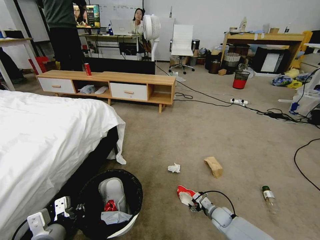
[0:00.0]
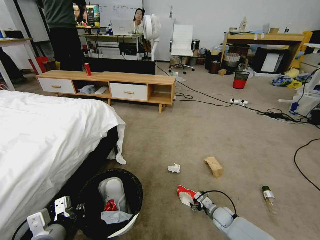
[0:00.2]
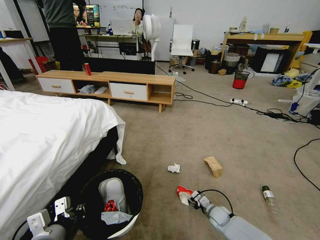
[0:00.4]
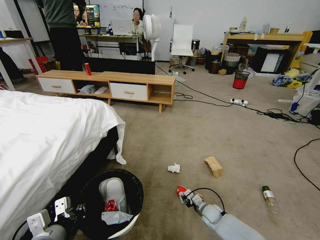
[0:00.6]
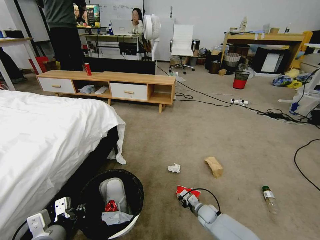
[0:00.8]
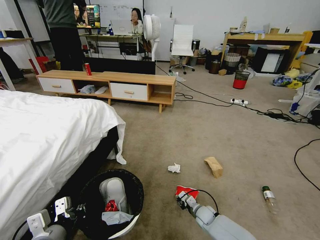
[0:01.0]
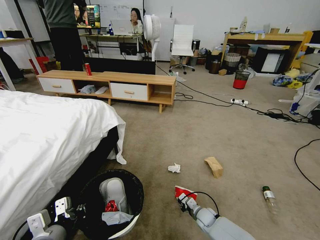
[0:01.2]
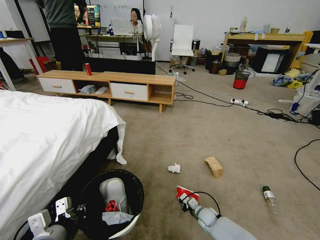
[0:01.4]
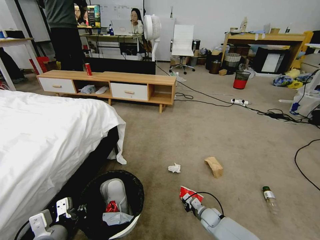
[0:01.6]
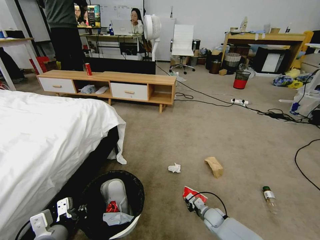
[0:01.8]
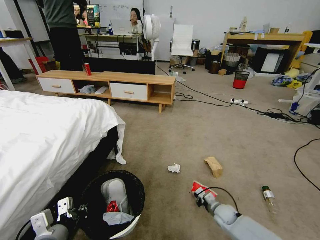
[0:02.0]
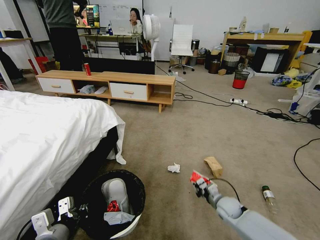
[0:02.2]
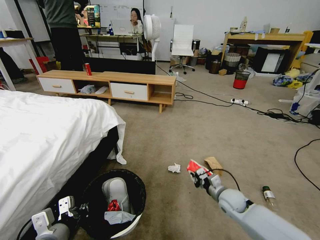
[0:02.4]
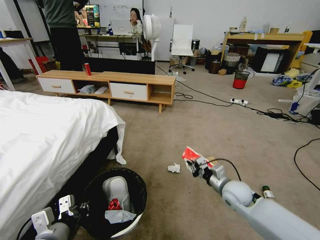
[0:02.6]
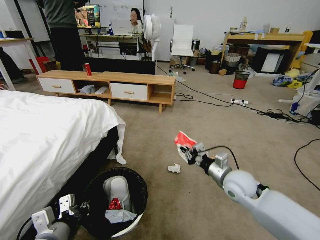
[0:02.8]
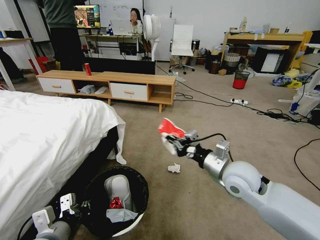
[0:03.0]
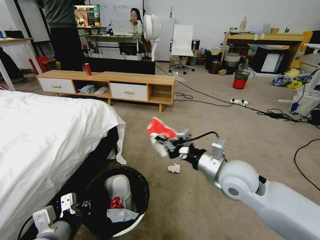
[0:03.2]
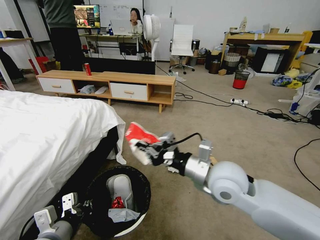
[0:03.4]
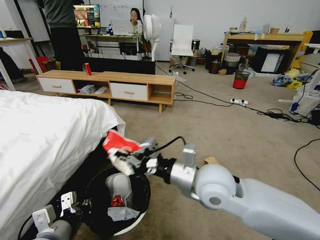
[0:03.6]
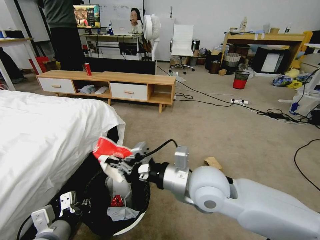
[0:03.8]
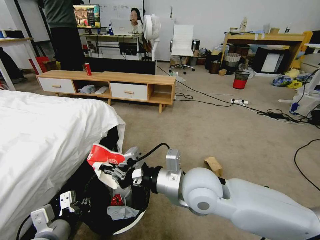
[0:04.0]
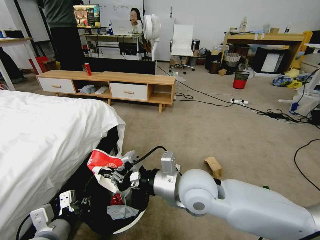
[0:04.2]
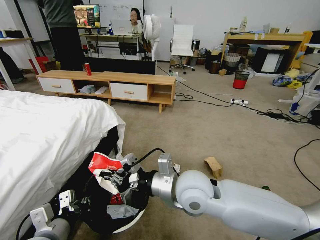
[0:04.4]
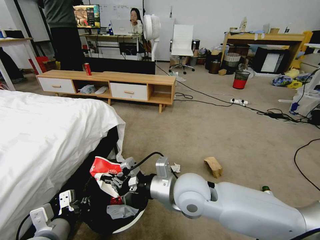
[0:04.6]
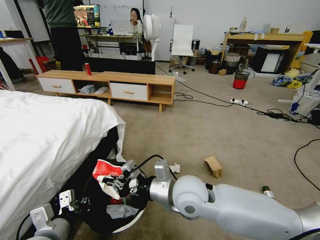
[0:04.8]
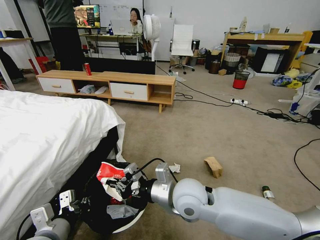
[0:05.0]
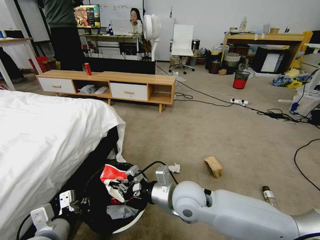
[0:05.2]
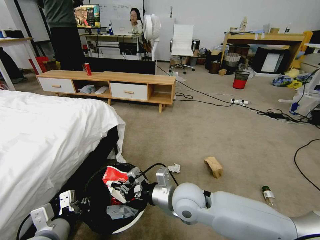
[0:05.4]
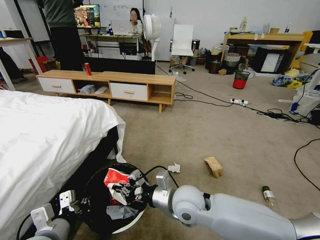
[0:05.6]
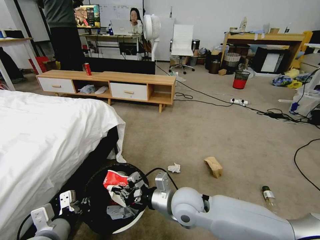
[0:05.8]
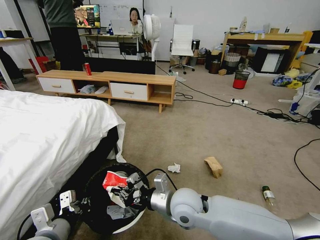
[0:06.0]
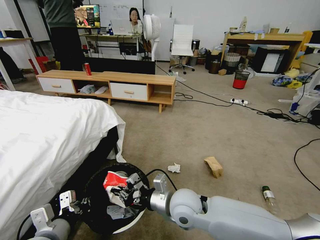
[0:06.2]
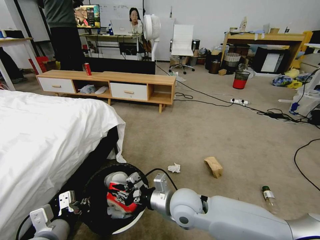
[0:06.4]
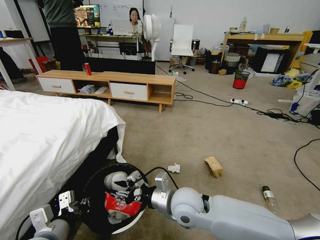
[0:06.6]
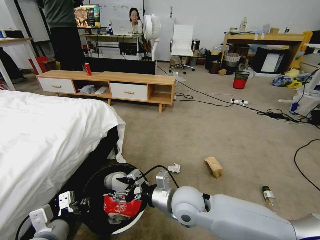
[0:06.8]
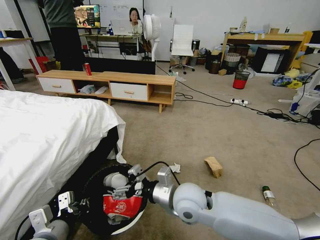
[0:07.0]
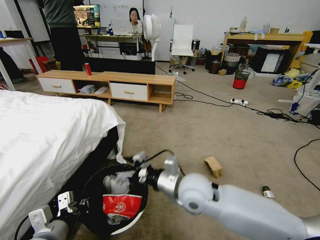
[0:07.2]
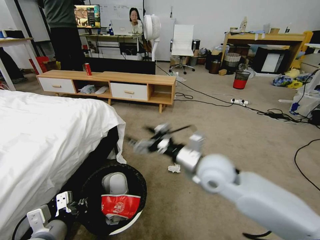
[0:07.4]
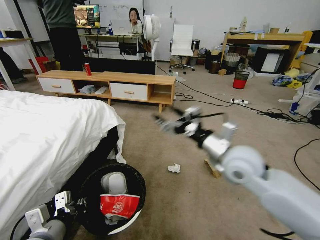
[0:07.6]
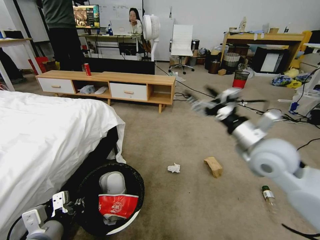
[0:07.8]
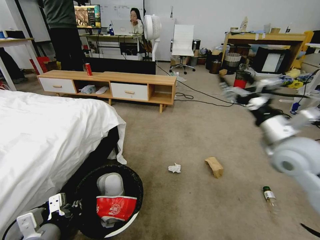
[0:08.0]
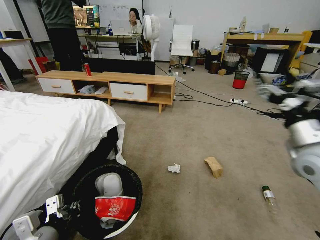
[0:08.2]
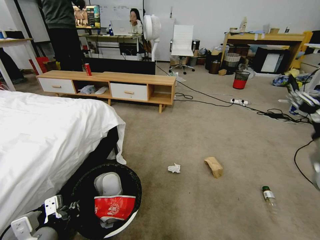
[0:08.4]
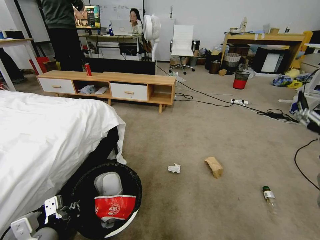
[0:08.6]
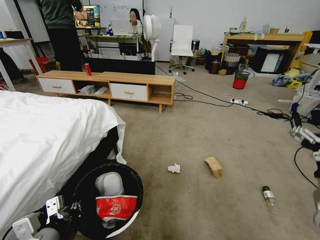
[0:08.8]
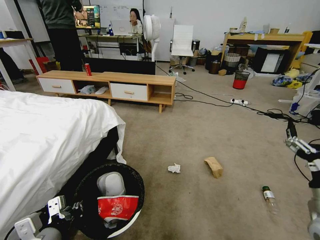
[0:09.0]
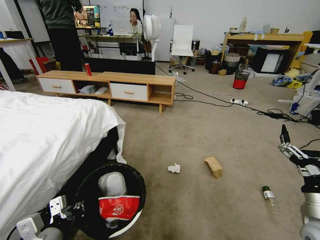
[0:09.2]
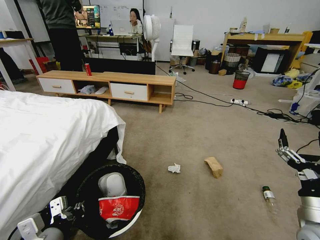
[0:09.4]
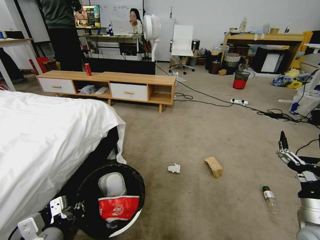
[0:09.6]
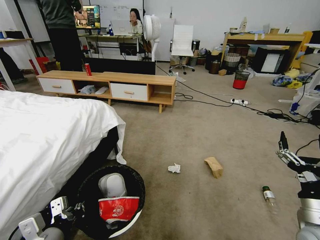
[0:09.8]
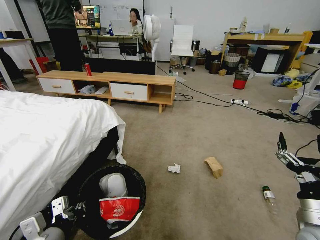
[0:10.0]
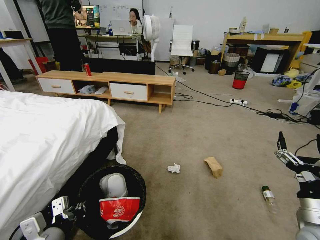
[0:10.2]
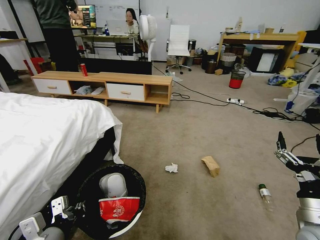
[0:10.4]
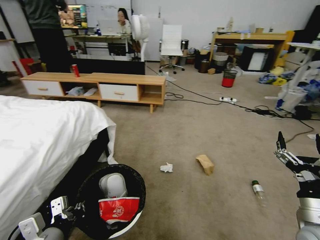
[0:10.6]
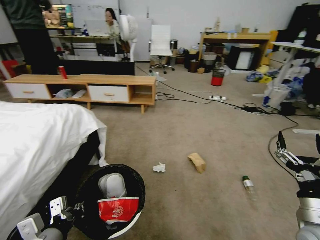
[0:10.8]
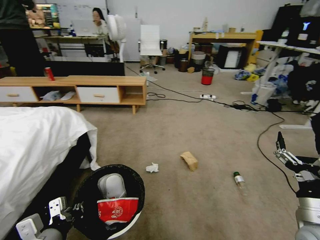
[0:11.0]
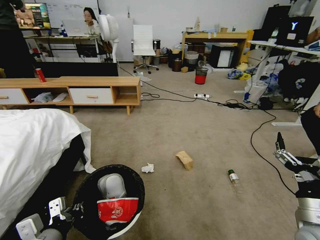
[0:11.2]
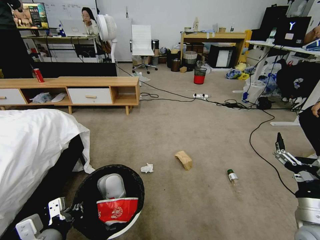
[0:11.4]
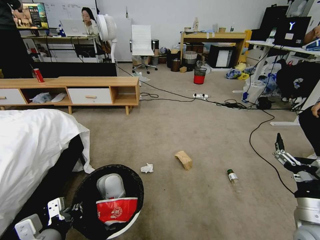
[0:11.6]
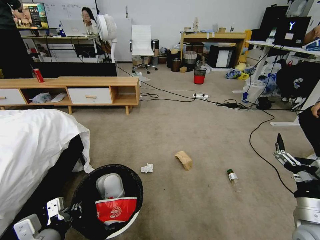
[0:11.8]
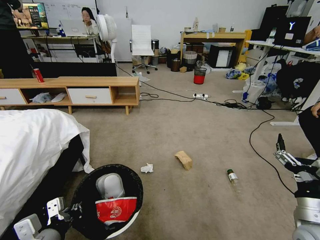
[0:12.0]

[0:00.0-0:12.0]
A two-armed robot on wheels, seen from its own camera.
Task of the whole recording: Pick up the trash bin and place the garbage on the floor into it.
0:00.0 to 0:01.6: The right gripper ends up about 5 cm from where it was, and closes.
0:01.6 to 0:03.0: The right gripper travels upward by roughly 35 cm.
0:03.0 to 0:04.4: The right gripper goes about 15 cm to the left.
0:04.4 to 0:06.0: The right gripper shifts about 10 cm downward.
0:06.0 to 0:07.6: The right gripper travels to the right and upward by approximately 20 cm, and opens up.
0:07.6 to 0:09.0: The right gripper moves to the right, backward and downward, about 25 cm.

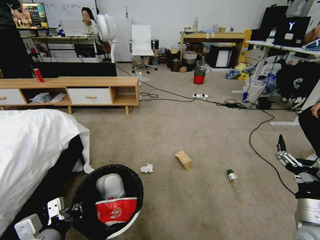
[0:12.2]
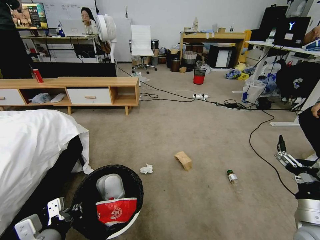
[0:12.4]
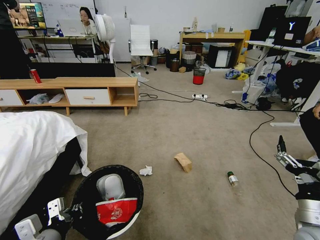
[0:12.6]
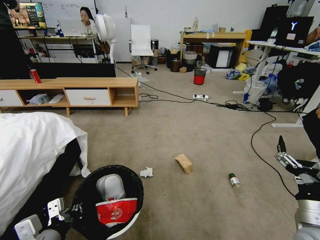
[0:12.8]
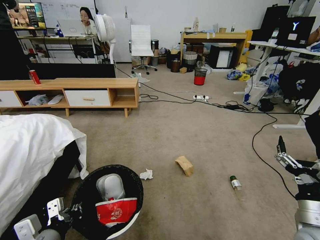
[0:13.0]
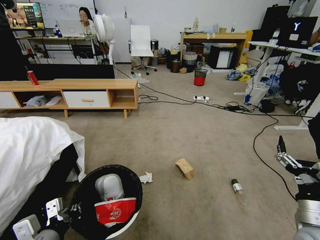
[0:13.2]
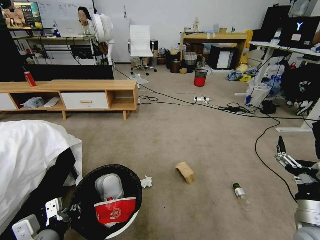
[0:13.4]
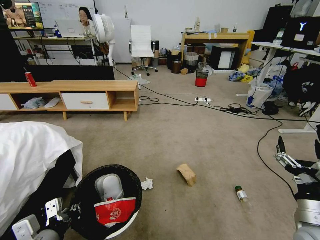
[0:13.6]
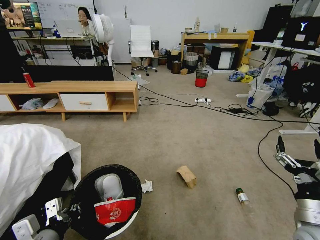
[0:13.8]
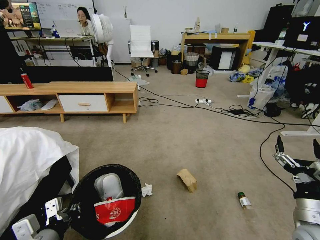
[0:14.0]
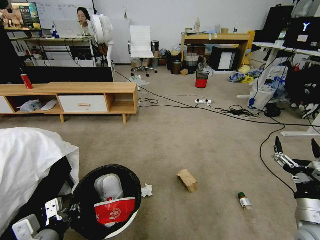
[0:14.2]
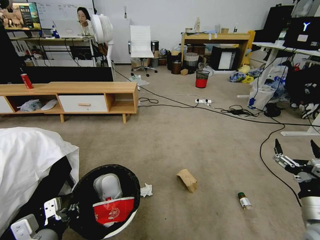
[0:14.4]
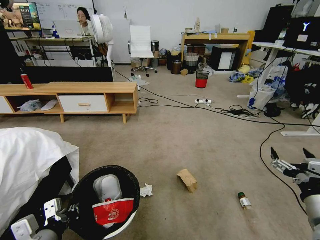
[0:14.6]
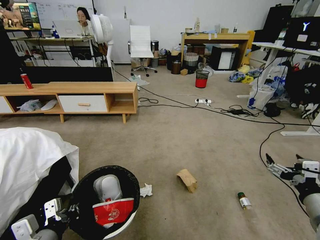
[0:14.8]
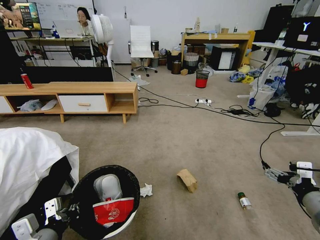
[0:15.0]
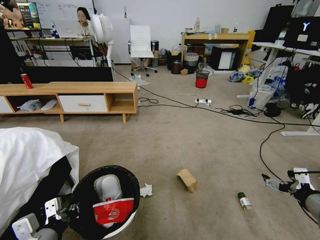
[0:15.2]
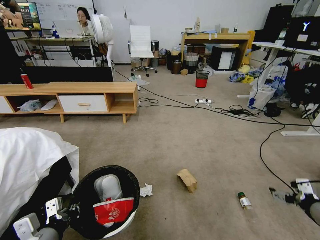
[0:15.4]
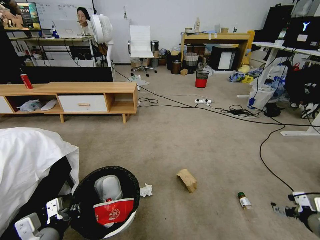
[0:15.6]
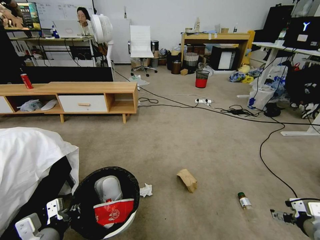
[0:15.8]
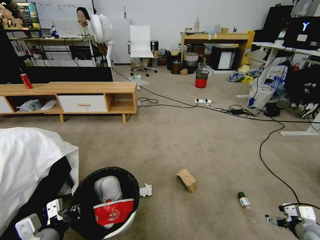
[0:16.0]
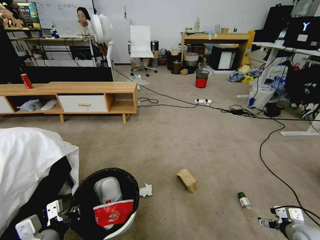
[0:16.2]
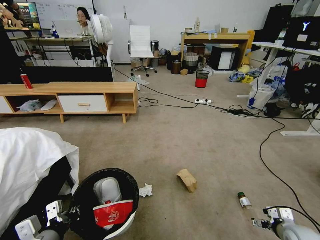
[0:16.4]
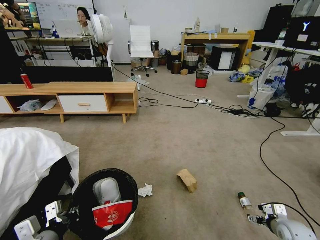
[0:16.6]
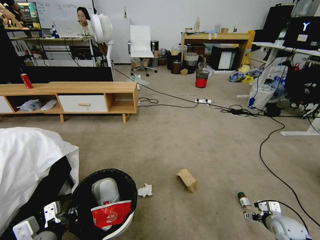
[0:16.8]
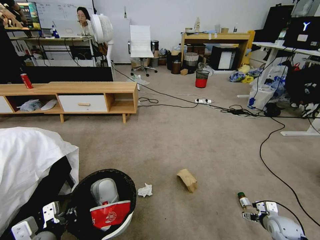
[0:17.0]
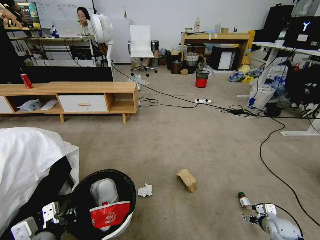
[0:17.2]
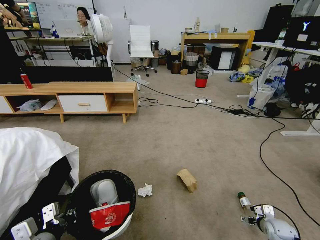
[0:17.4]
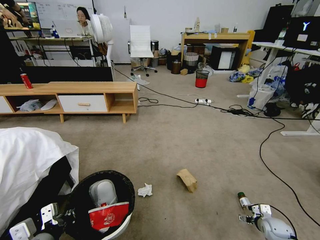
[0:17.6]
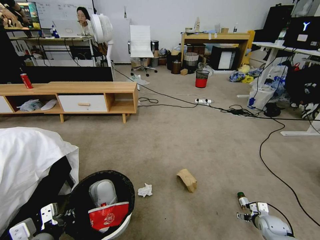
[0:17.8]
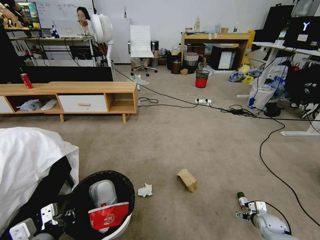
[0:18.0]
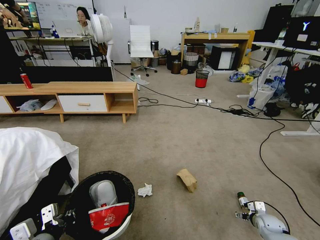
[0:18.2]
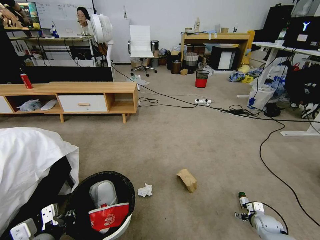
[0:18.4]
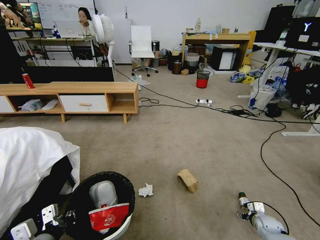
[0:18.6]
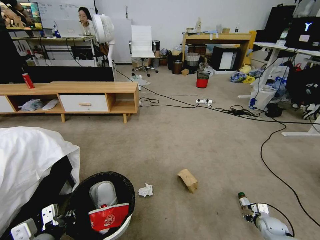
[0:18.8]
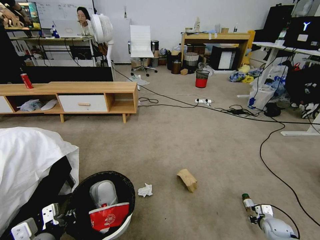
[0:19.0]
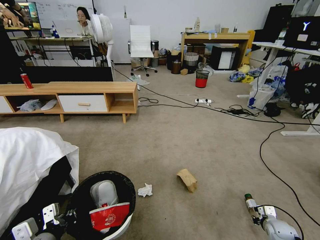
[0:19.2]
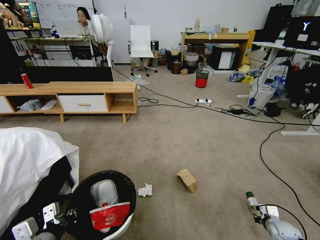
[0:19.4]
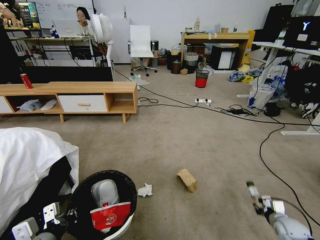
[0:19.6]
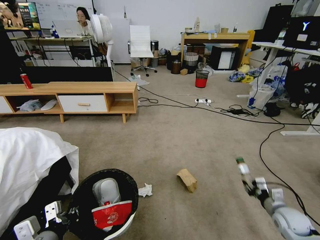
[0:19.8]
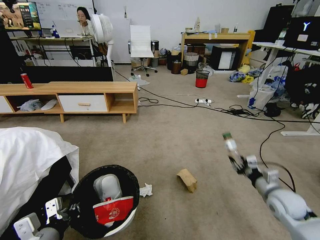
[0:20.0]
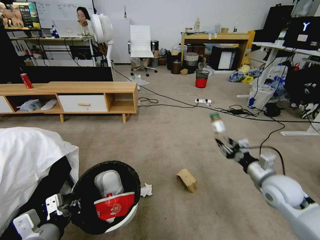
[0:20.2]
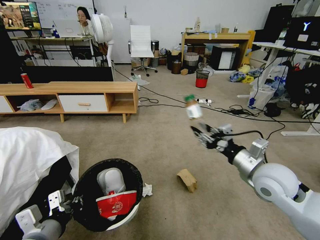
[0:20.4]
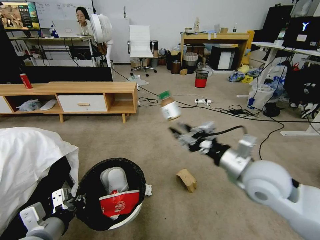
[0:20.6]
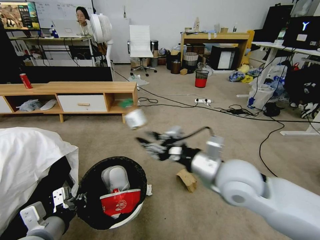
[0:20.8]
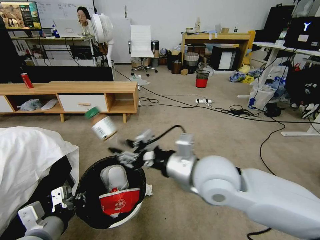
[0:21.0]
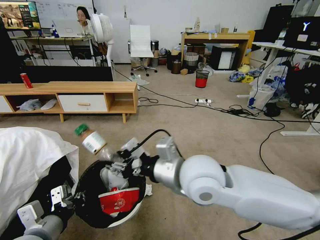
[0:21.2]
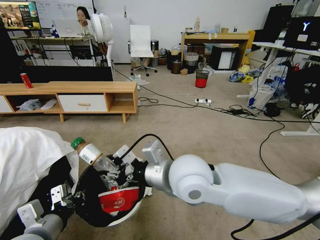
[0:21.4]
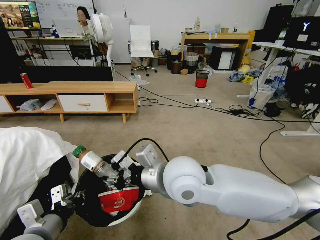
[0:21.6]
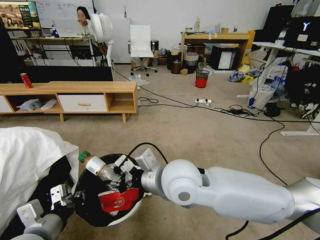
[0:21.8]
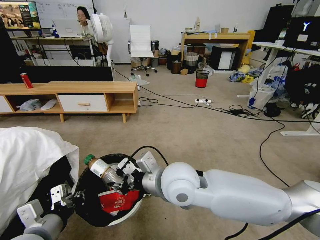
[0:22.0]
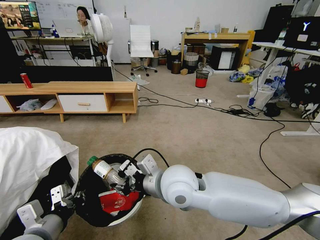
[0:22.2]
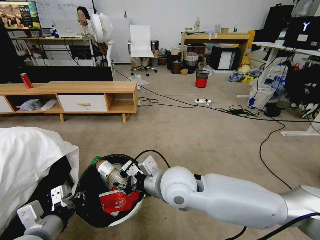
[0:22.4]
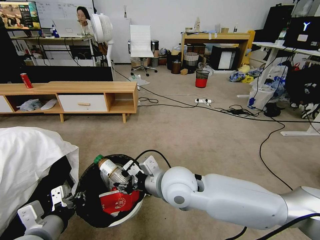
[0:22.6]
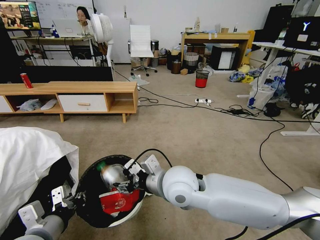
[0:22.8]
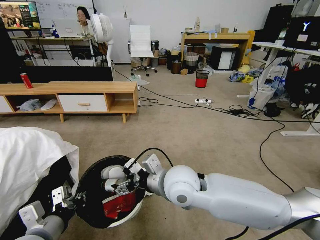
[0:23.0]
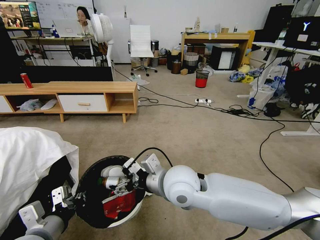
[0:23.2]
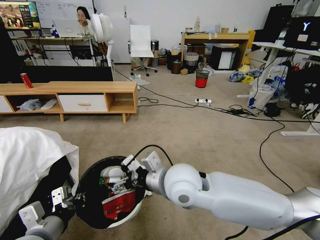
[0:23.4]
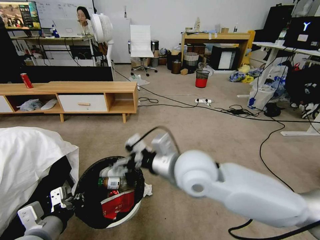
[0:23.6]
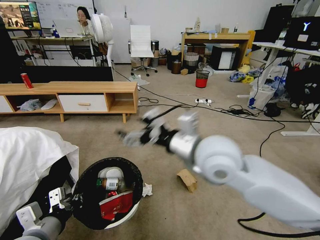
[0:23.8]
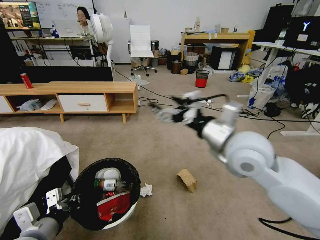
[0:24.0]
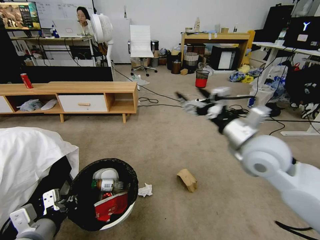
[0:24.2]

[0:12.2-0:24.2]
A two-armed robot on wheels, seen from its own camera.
Task of the whole recording: Pick up the trash bin and place the garbage on the floor into it.
0:13.8 to 0:15.2: The right gripper travels upward and to the right by approximately 10 cm.
0:15.2 to 0:16.6: The right gripper shifts roughly 25 cm downward.
0:16.6 to 0:18.2: The right gripper moves downward and forward, roughly 10 cm.
0:18.2 to 0:19.8: The right gripper goes some 15 cm upward, and closes up.
0:19.8 to 0:21.2: The right gripper shifts approximately 50 cm to the left and upward.
0:21.2 to 0:22.6: The right gripper goes roughly 5 cm downward.
0:22.6 to 0:24.2: The right gripper goes about 20 cm to the right and upward, and opens.
